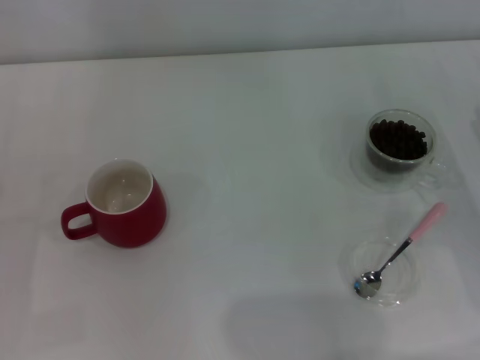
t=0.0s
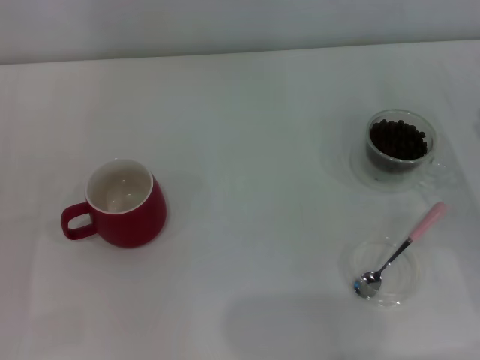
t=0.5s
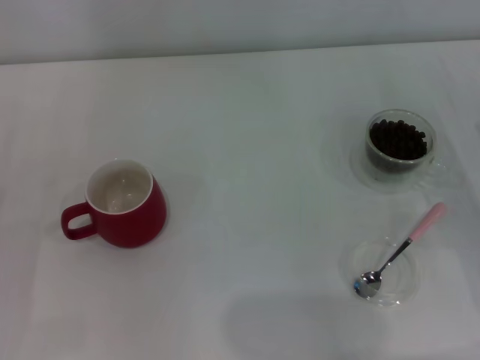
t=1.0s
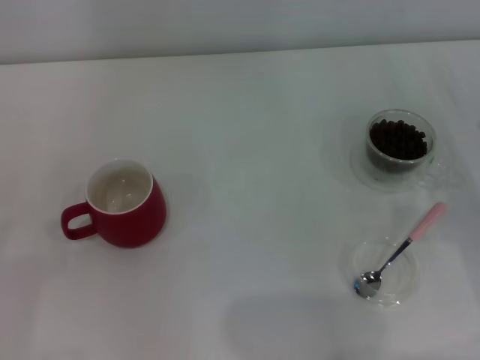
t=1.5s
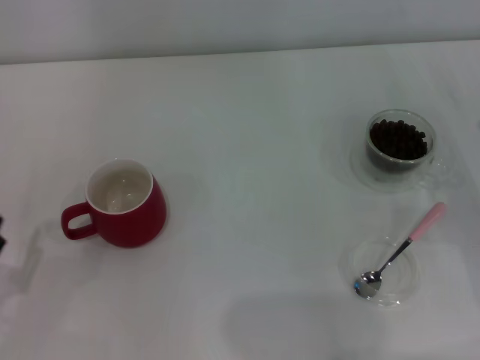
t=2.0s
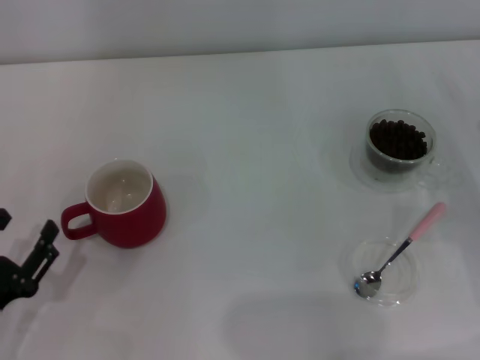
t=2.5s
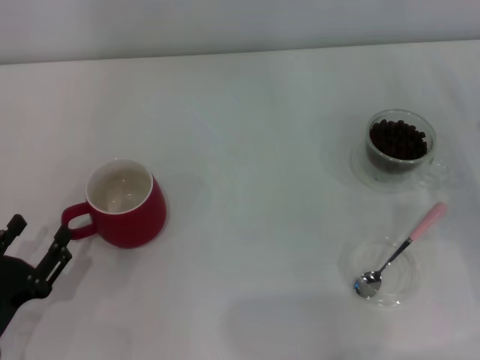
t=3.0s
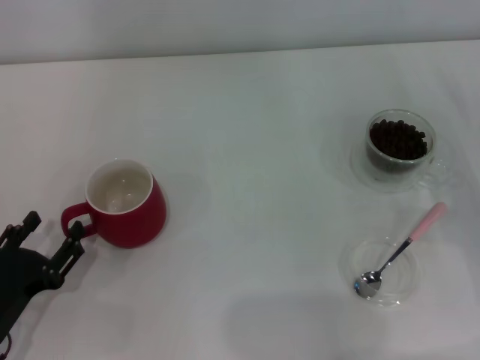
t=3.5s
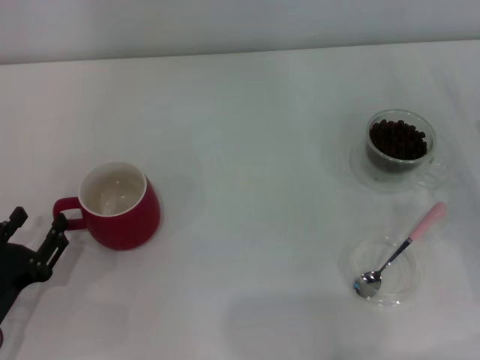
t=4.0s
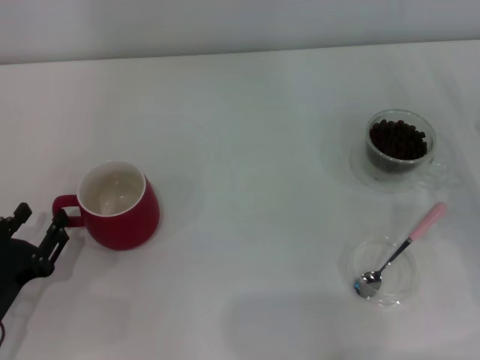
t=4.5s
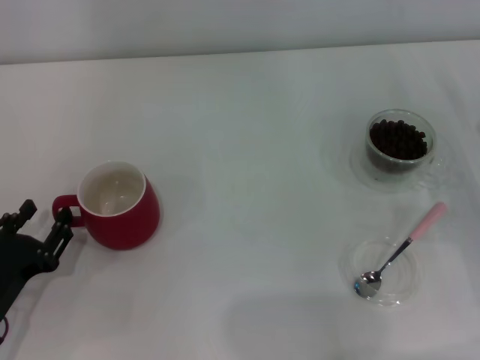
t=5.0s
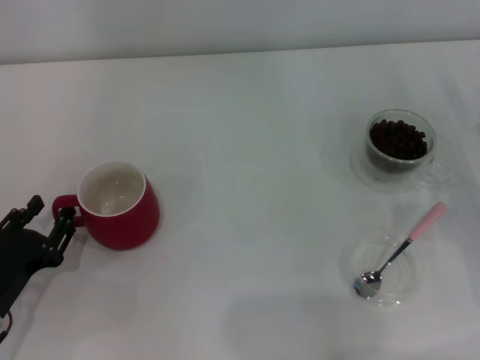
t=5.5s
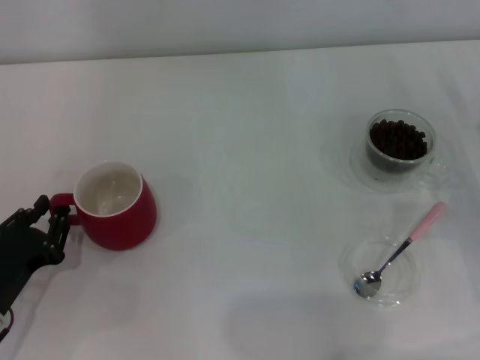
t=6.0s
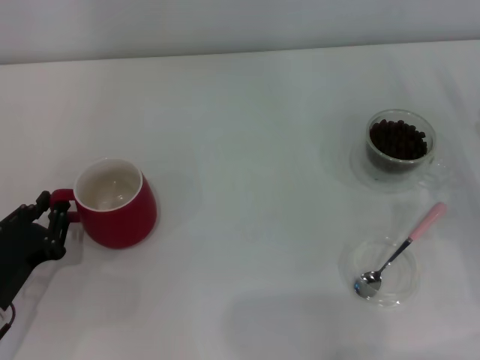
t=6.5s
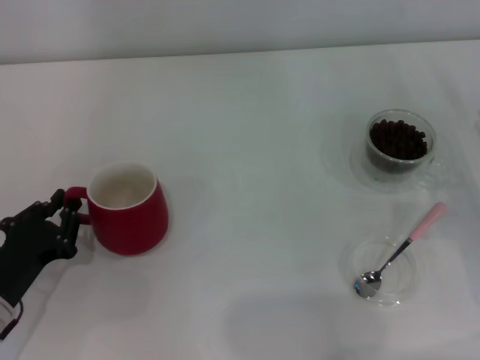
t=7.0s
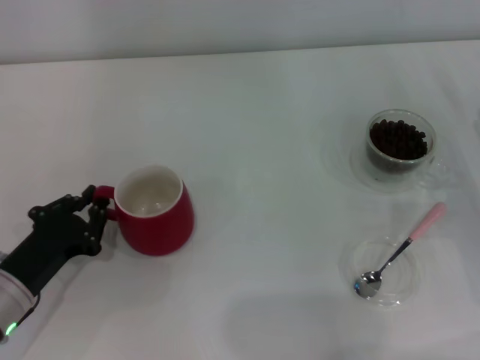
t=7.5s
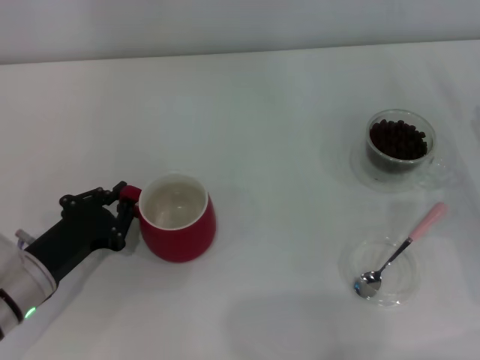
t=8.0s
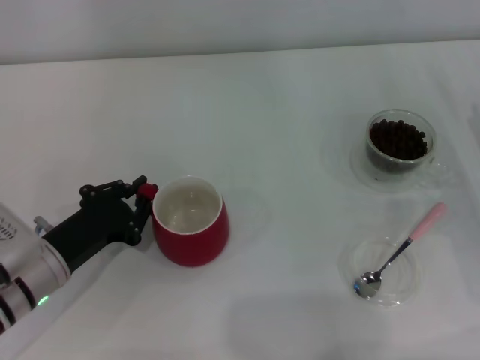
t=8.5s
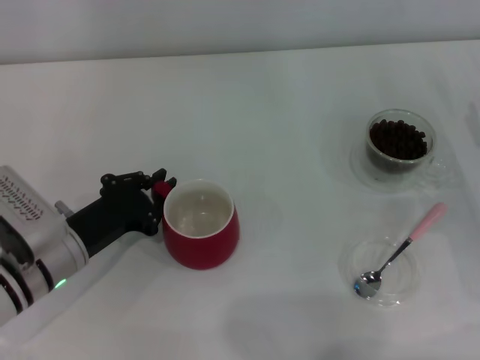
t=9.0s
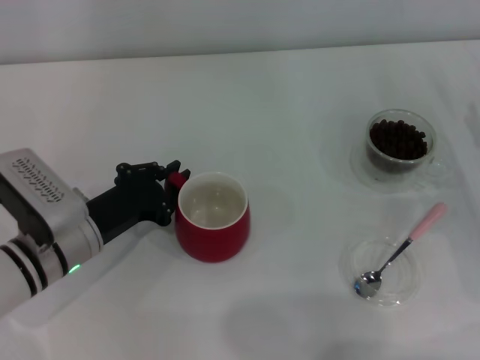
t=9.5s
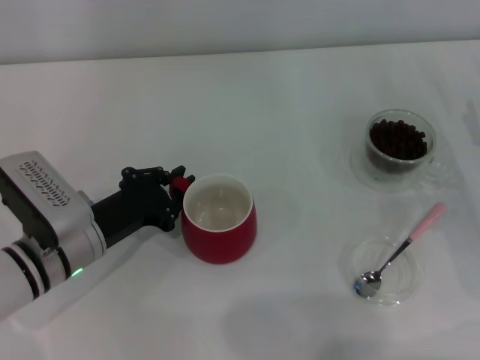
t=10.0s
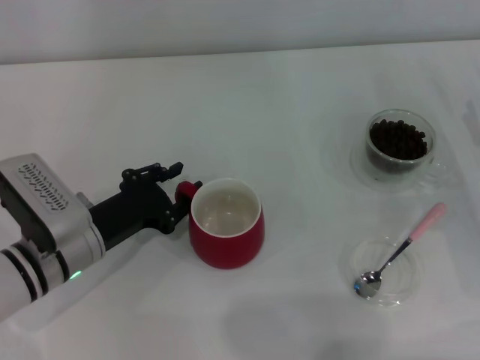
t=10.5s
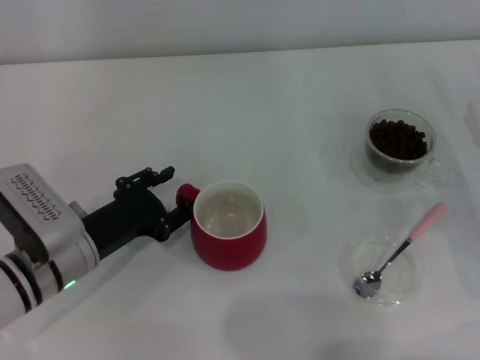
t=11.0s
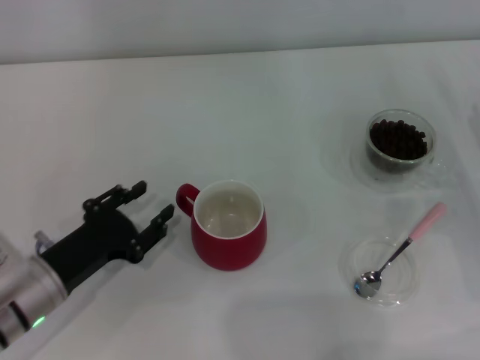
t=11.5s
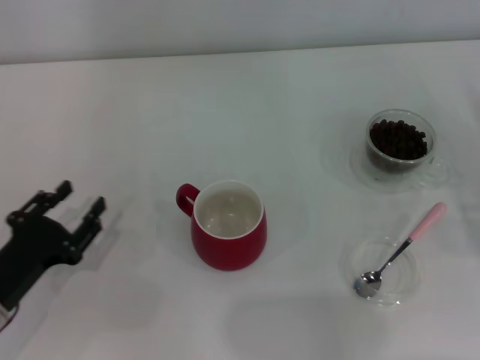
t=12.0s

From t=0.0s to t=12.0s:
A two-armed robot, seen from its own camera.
Task of the whole recording: Use a pink spoon to take out the coffee beans from the glass and pour them into the red cup.
Step, from t=0.0s to t=11.5s: Move the cup to the center of view with the left gripper.
From t=2.0s to t=4.0s: The grippers move only a little.
From t=4.0s to t=6.0s: The left gripper closes.
From t=6.0s to t=8.0s: The left gripper shifts by approximately 5 cm, and closes up.
From t=8.0s to t=10.0s: The left gripper ends up approximately 5 cm from where it was.
From t=10.0s to t=12.0s: The right gripper moves approximately 5 cm. Meanwhile the left gripper moves to the left and backward, approximately 10 cm, and opens its fingers.

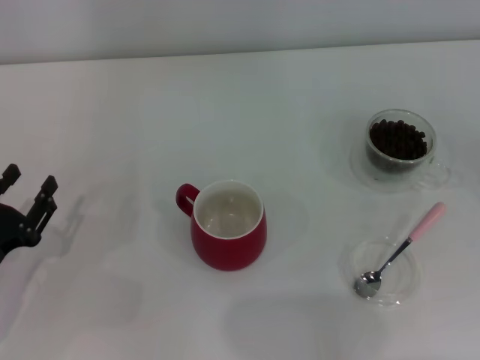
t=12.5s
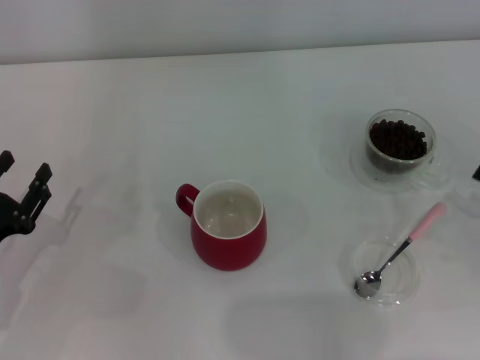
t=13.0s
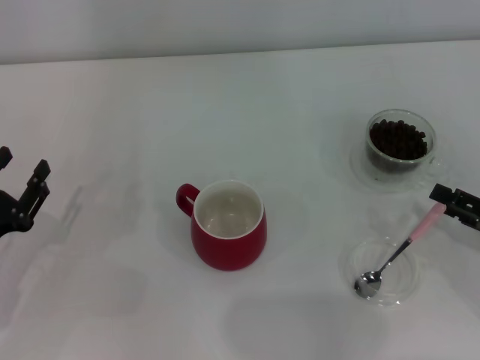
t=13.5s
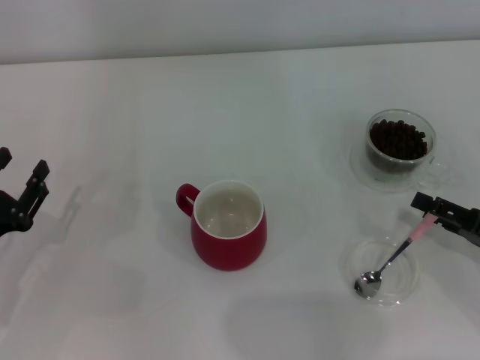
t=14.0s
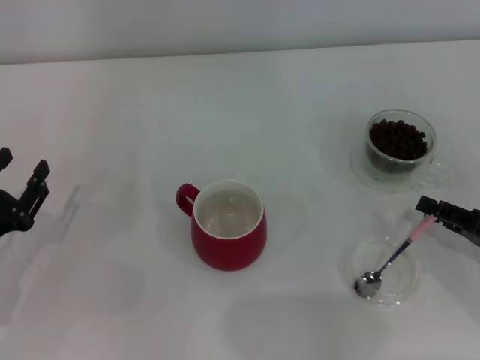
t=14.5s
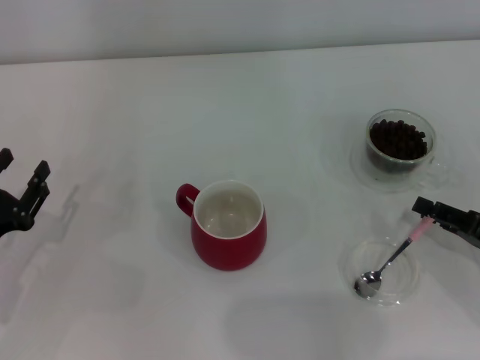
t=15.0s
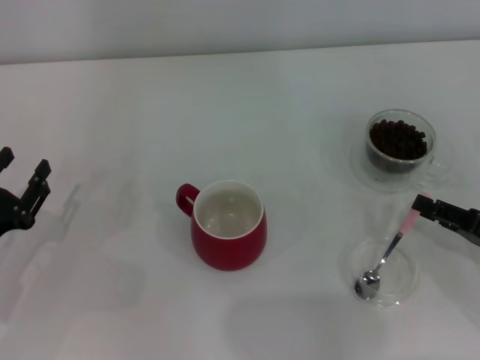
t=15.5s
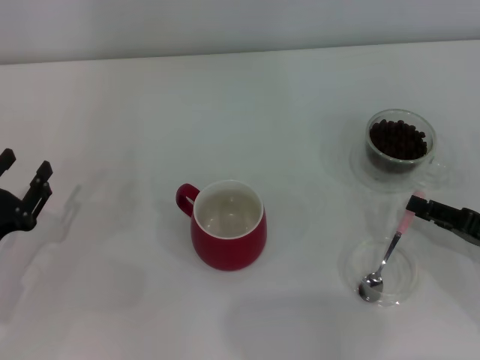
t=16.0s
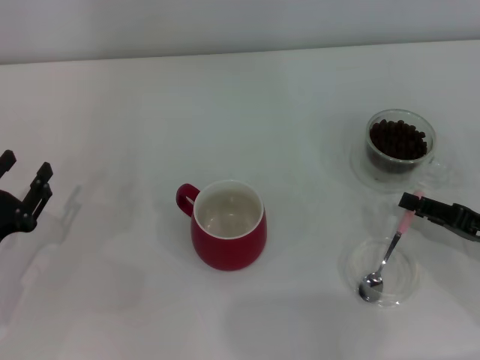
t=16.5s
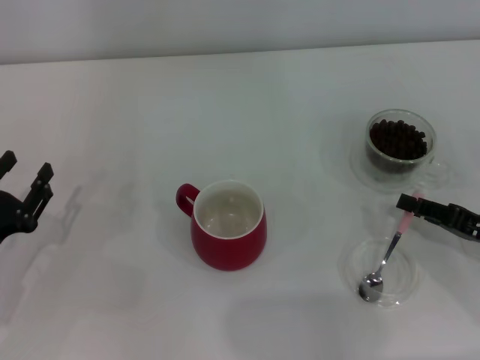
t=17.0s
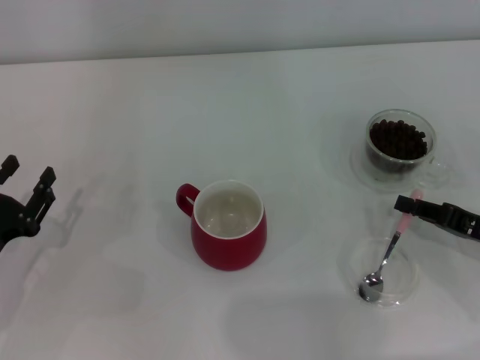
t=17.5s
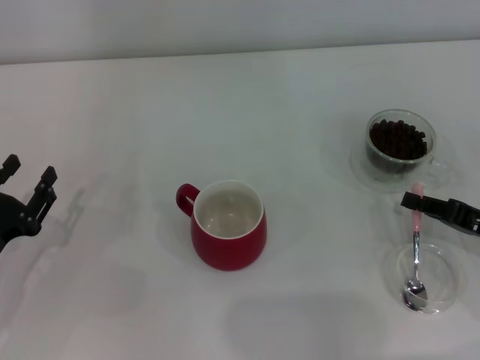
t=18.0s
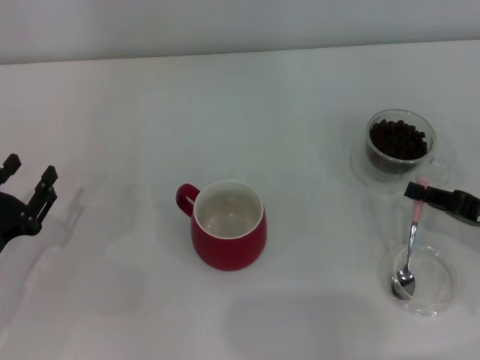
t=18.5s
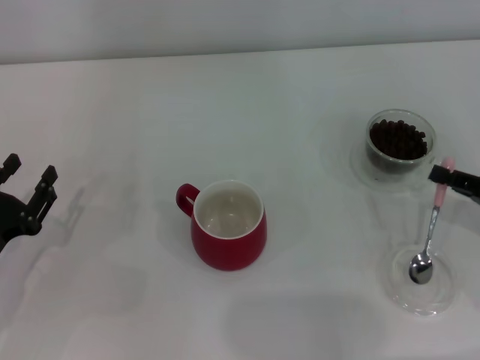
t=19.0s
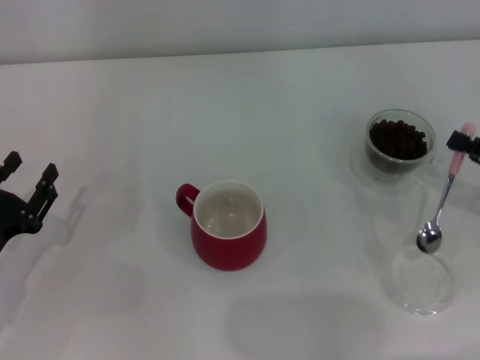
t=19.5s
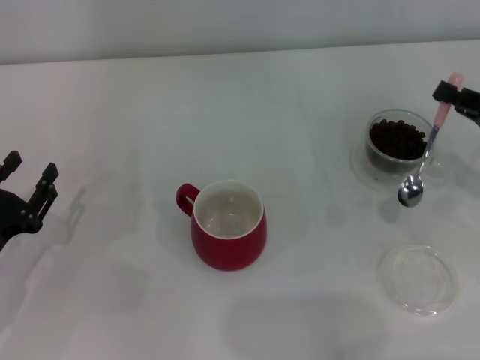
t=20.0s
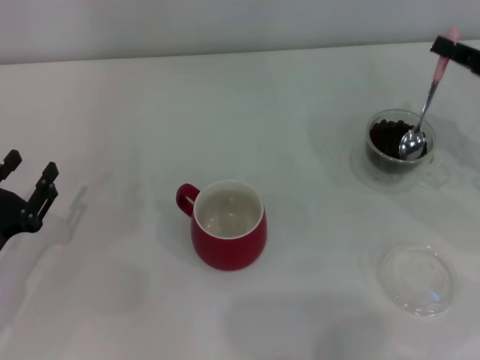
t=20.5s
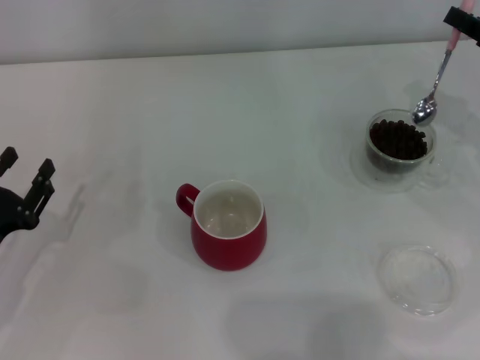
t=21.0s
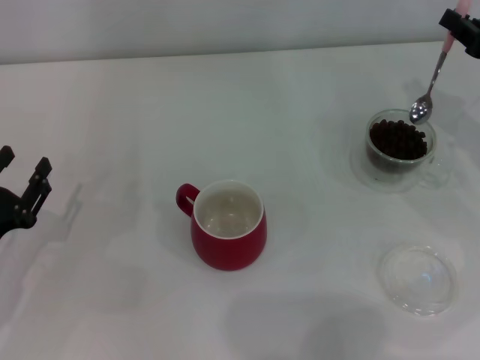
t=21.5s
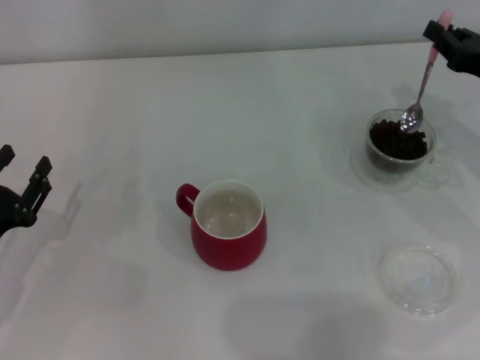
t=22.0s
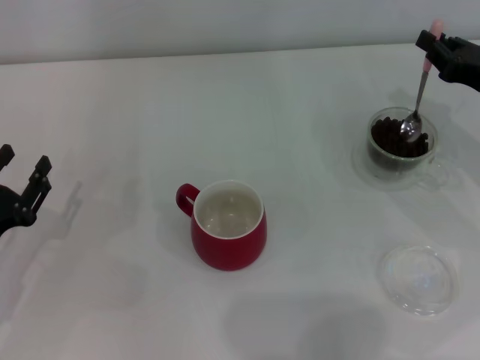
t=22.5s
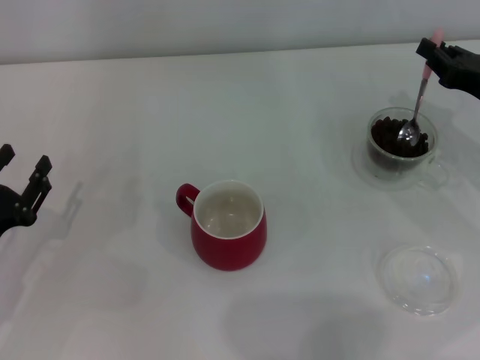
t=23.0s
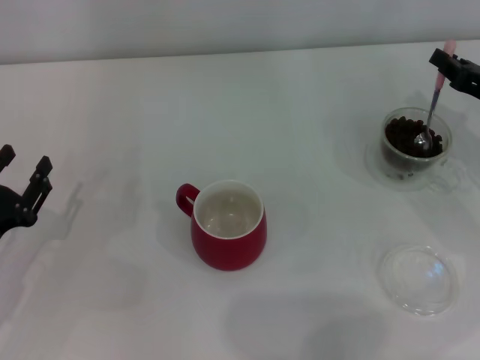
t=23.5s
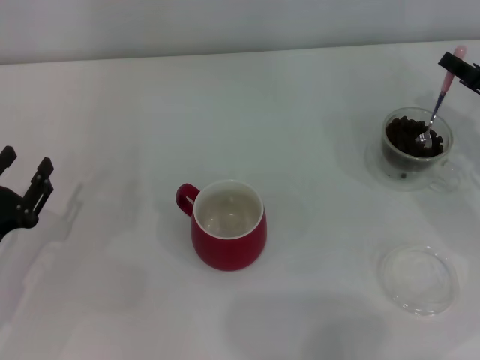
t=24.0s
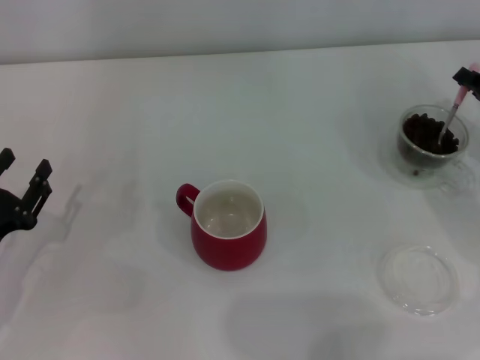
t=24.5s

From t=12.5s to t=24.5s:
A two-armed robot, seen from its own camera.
Task of the whole recording: Use a pink spoon to take out the coffee beans from the glass and pour them into the red cup.
Step, from t=12.5s to t=19.5s: Pick up the spoon with the right gripper.
From t=12.5s to t=14.5s: The right gripper shifts about 10 cm to the left.
From t=14.5s to t=16.5s: The grippers move only a little.
From t=16.5s to t=18.5s: The right gripper closes up.
From t=18.5s to t=20.5s: The right gripper heads forward and upward, covering approximately 10 cm.

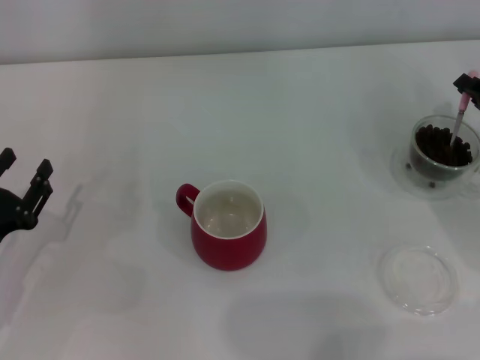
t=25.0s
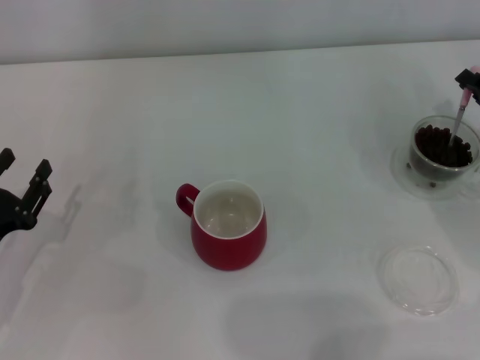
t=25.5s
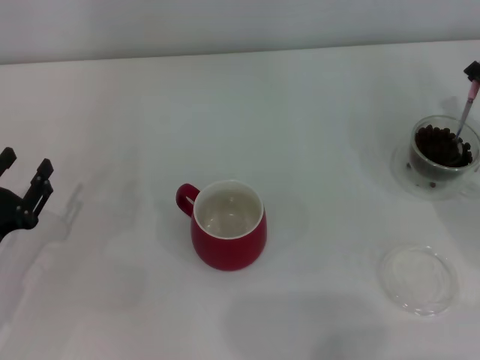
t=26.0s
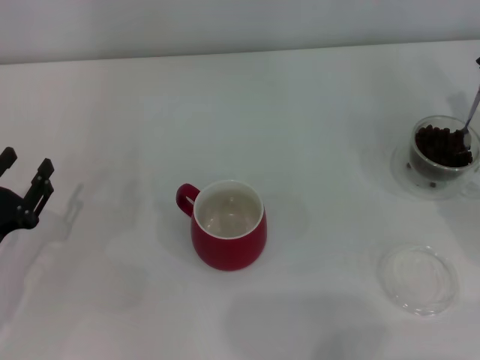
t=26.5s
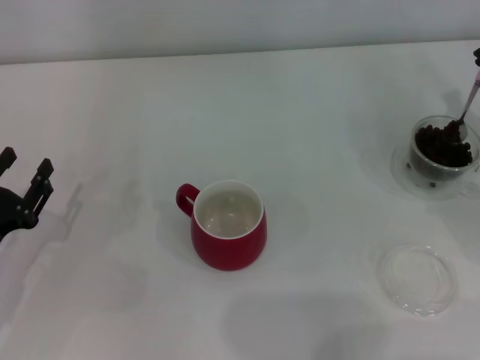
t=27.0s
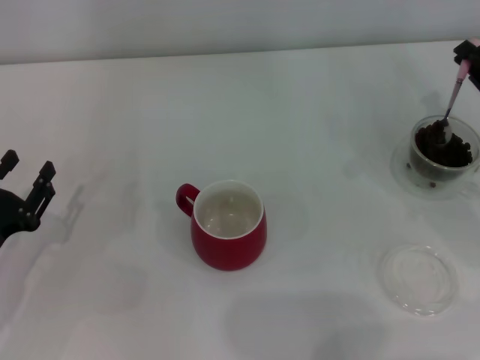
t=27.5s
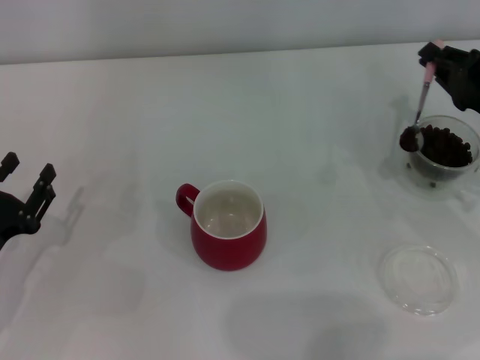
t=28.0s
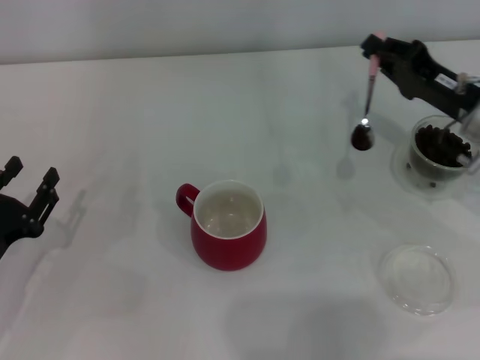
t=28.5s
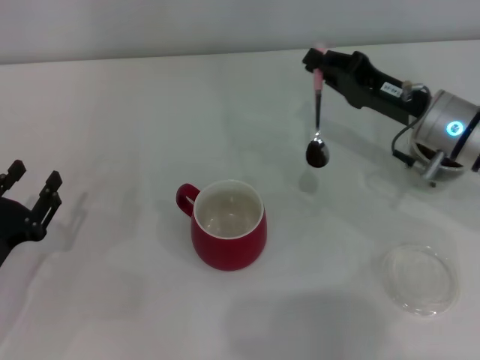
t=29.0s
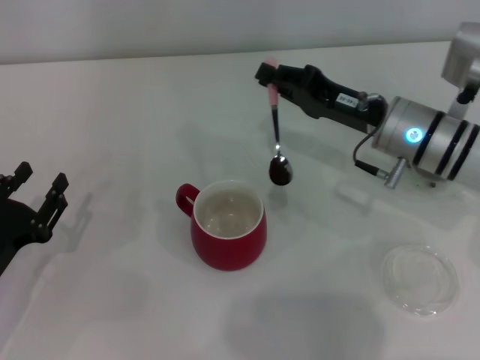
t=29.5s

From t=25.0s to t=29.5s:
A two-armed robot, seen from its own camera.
Task of the whole recording: Use a pink spoon to take out the coffee beans from the glass and pour them into the red cup.
From t=27.0s to t=29.5s: The right gripper goes some 15 cm to the left.
